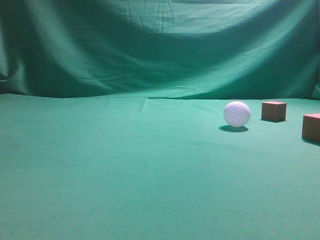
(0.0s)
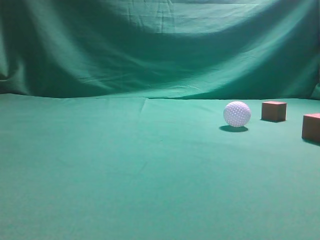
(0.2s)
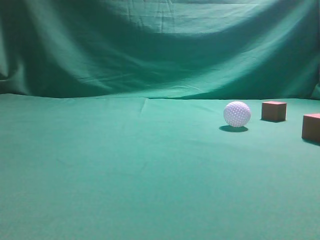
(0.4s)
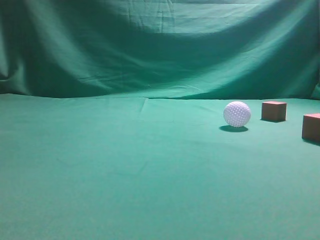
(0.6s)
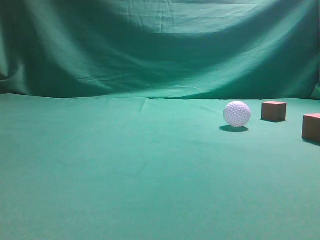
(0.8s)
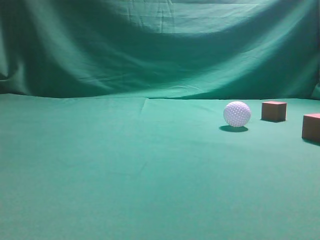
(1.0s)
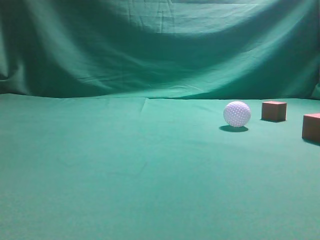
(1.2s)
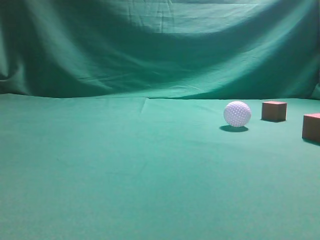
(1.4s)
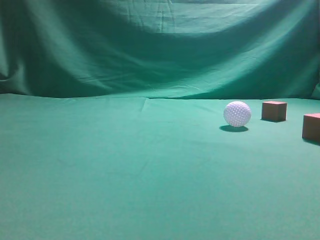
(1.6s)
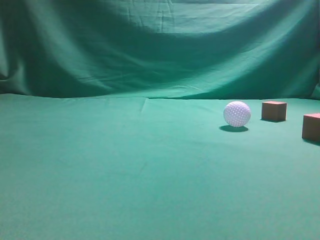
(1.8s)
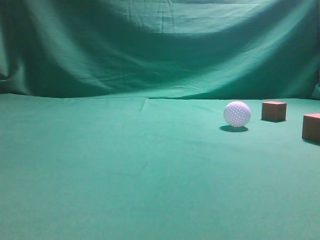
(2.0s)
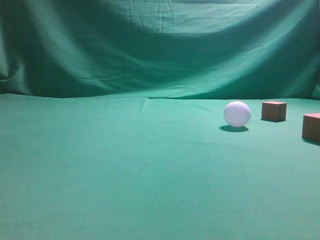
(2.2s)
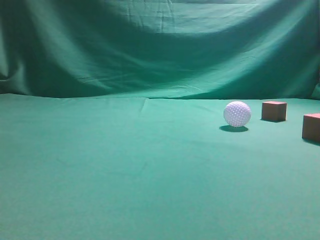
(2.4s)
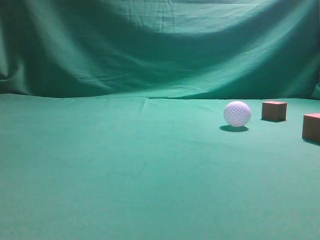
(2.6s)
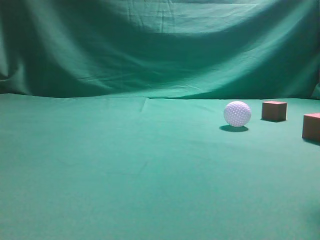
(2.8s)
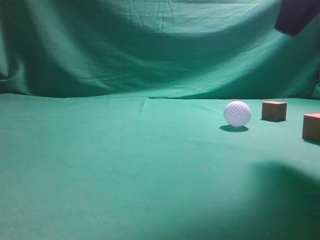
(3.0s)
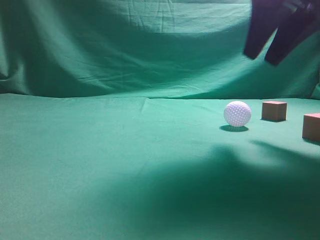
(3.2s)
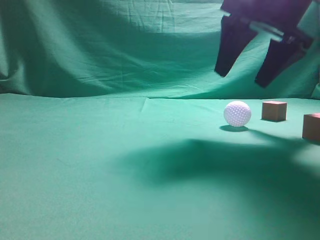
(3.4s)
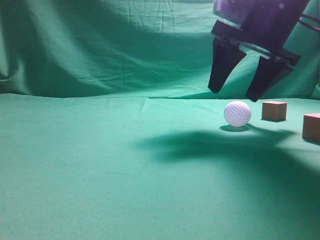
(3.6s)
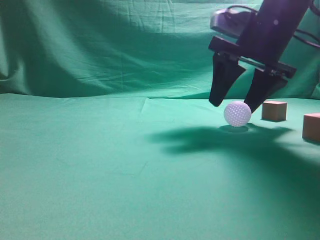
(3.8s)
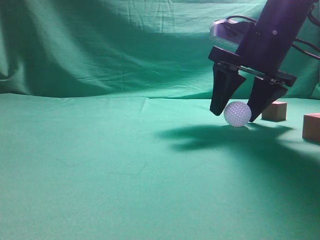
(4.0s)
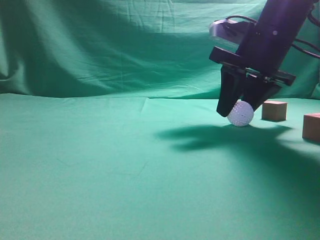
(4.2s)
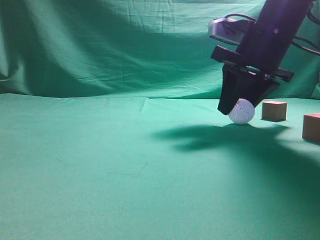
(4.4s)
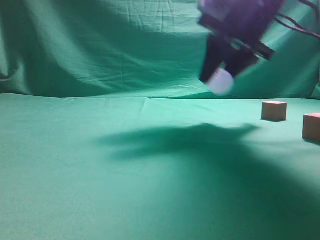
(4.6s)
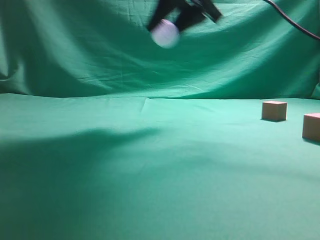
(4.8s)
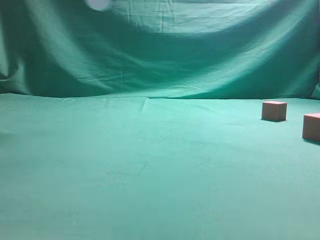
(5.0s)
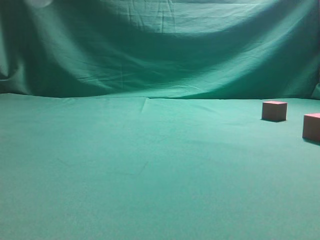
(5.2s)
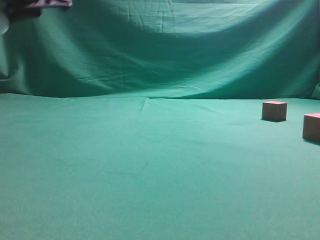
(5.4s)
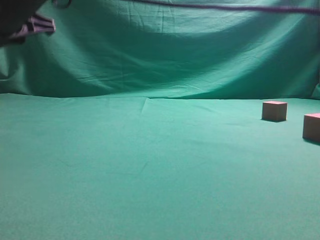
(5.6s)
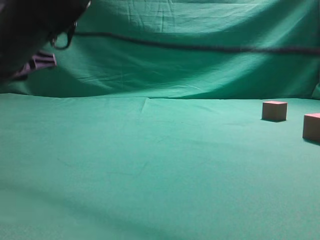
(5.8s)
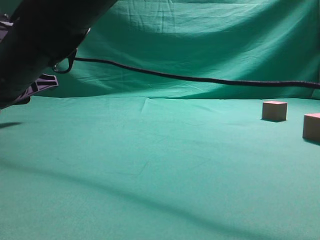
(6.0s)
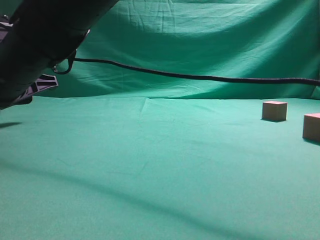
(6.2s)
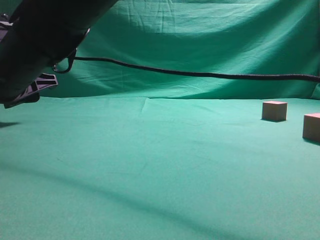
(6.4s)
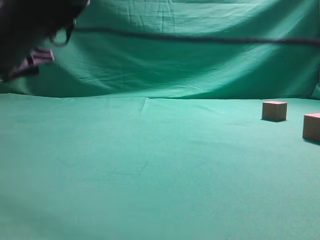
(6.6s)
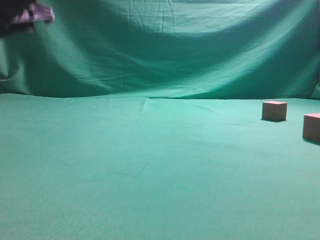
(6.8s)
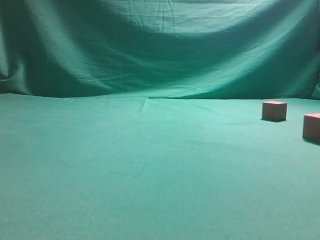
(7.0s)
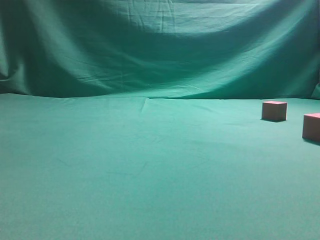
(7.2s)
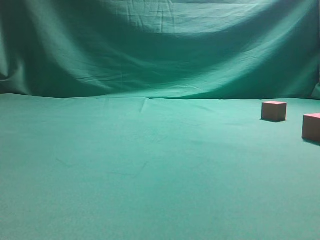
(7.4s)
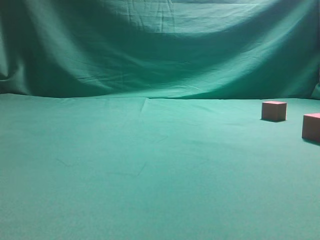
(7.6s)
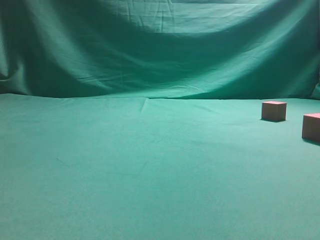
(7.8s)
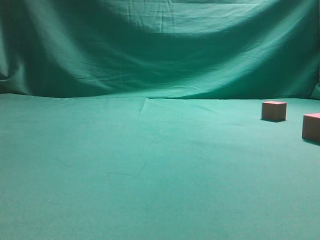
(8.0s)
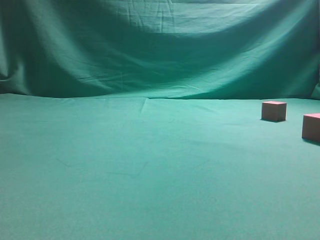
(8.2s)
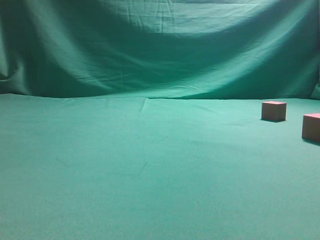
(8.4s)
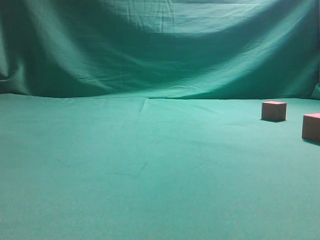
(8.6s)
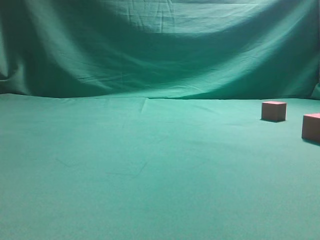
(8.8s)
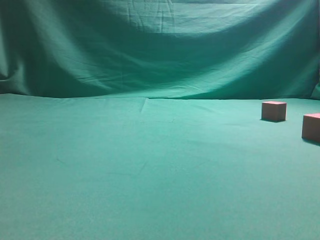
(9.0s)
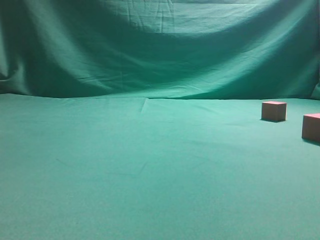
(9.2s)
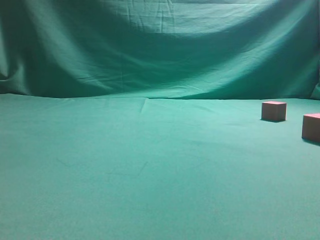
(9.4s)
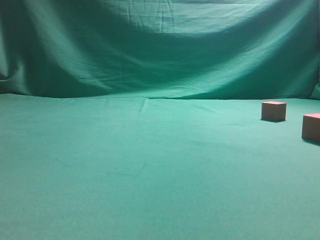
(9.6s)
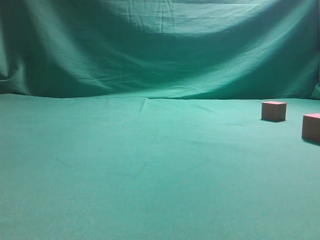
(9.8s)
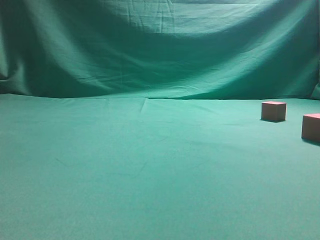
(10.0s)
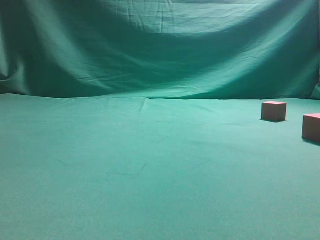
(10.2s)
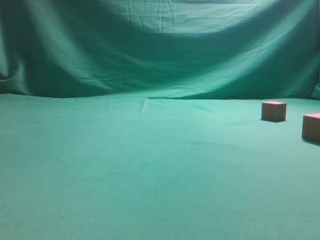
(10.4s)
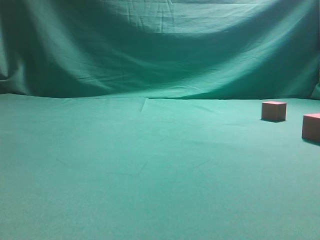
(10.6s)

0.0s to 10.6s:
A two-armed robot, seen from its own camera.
Step, 0.0s to 4.6s: Grasp the spherical object on the right side.
1.6s to 3.0s: The right gripper shifts approximately 25 cm forward and to the left.
3.0s to 4.6s: The right gripper shifts approximately 15 cm forward, to the left and downward, and opens.
4.6s to 6.0s: The right gripper is displaced to the left by some 30 cm.
6.0s to 7.6s: The right gripper travels upward and to the right by roughly 40 cm, and closes.
